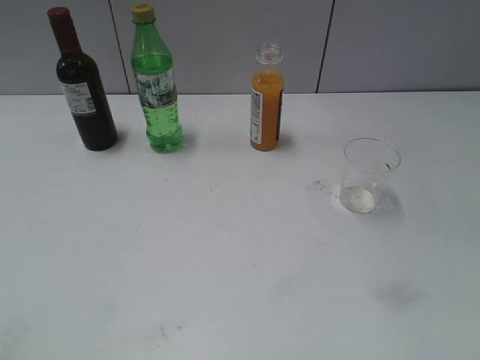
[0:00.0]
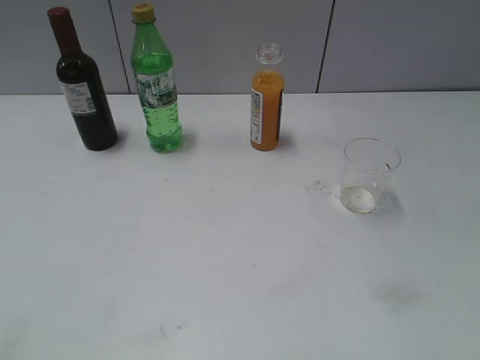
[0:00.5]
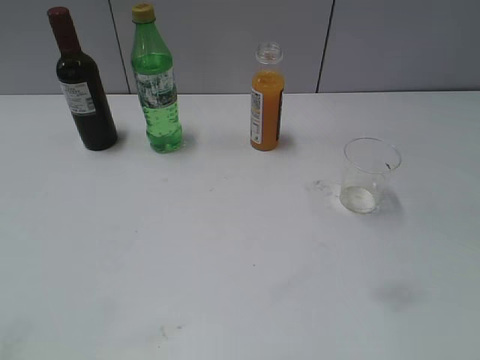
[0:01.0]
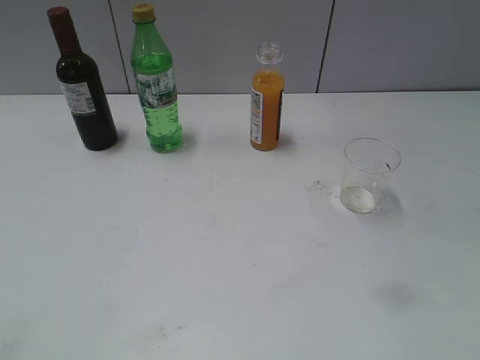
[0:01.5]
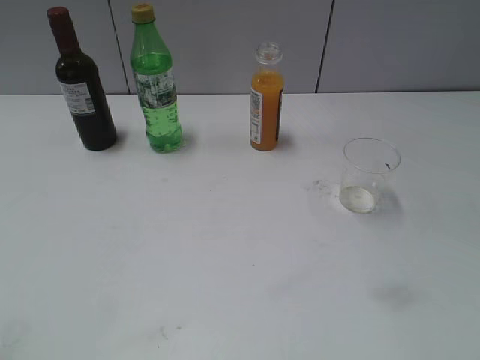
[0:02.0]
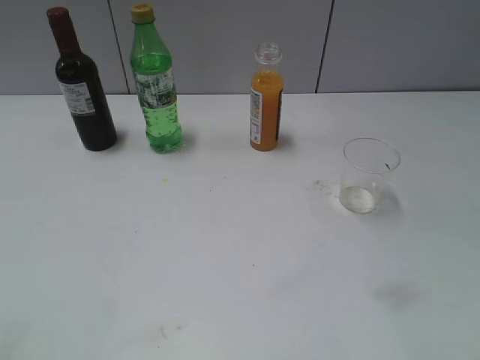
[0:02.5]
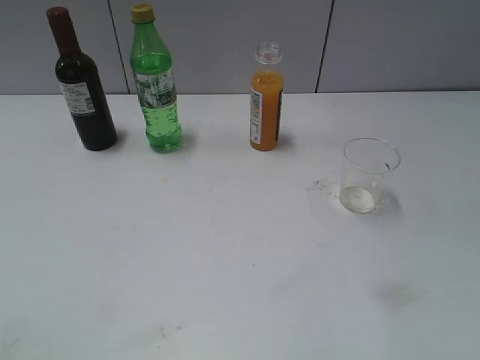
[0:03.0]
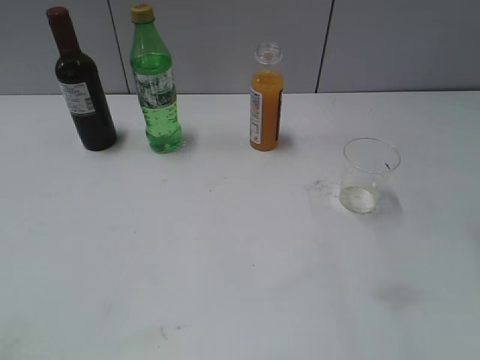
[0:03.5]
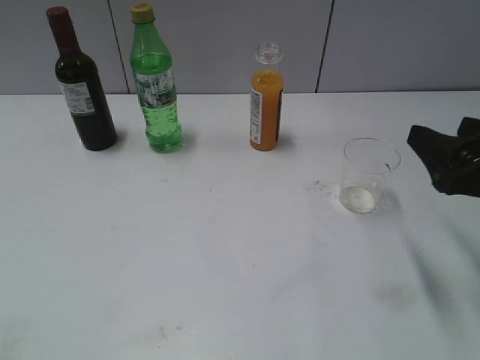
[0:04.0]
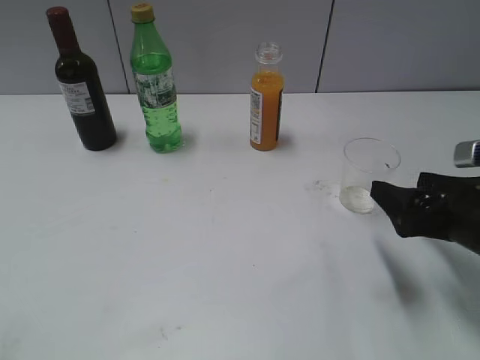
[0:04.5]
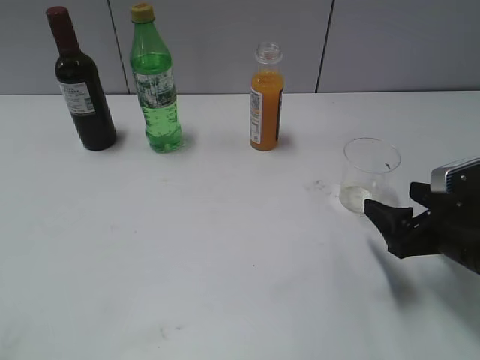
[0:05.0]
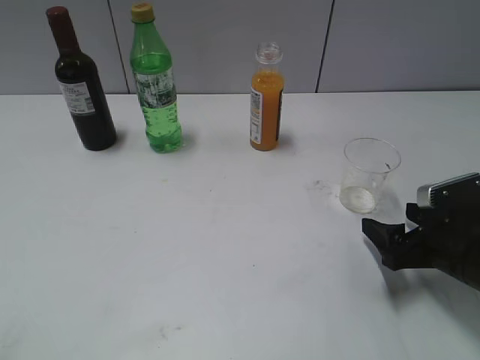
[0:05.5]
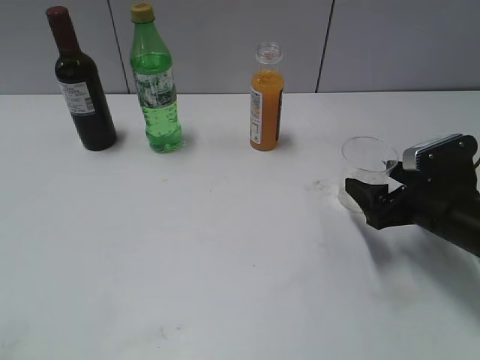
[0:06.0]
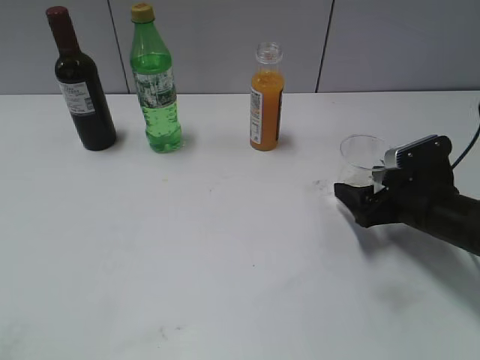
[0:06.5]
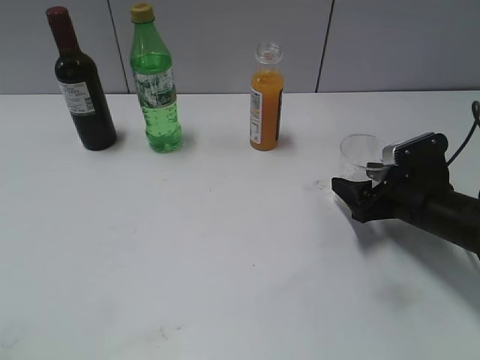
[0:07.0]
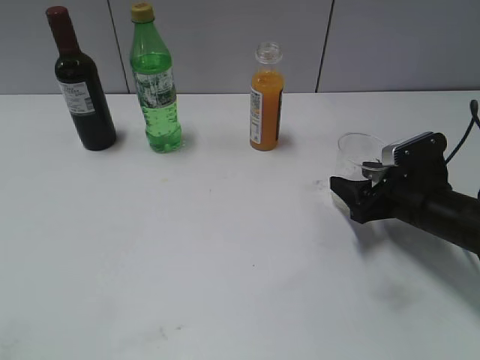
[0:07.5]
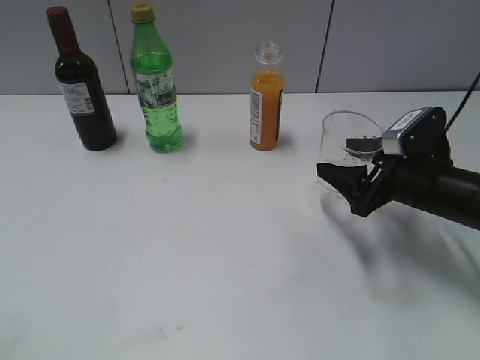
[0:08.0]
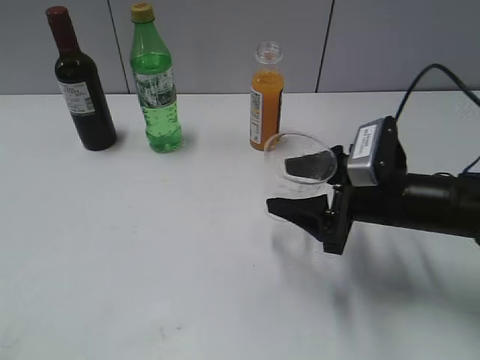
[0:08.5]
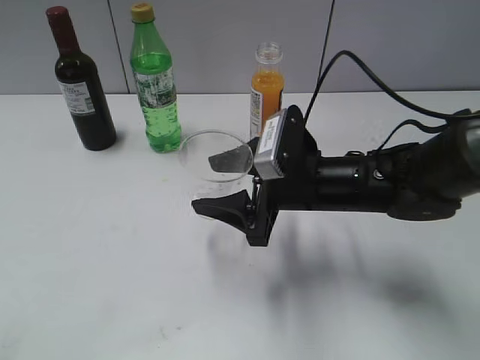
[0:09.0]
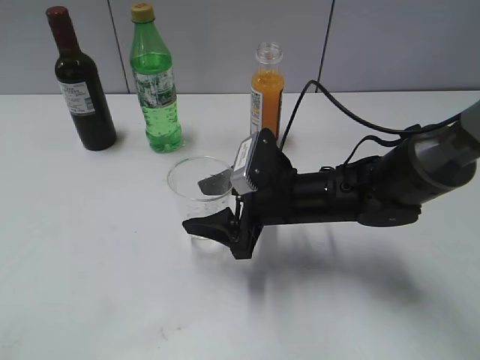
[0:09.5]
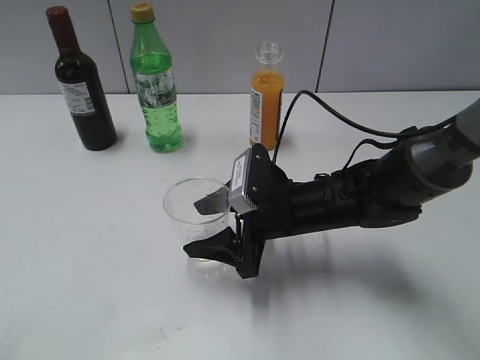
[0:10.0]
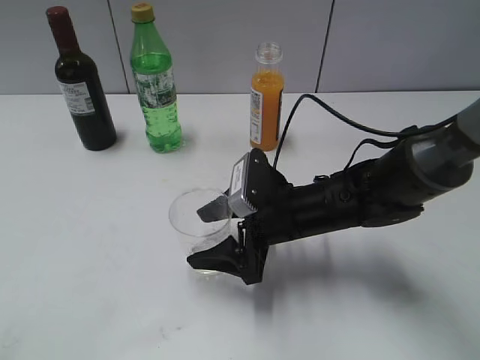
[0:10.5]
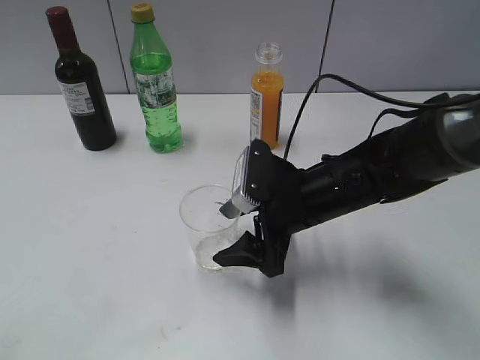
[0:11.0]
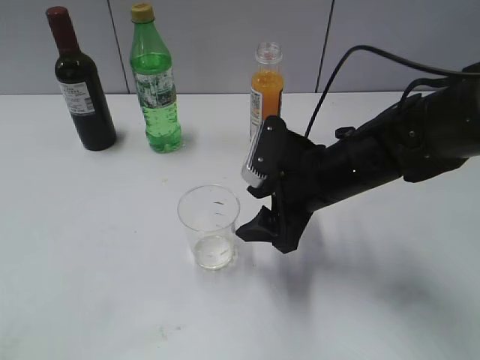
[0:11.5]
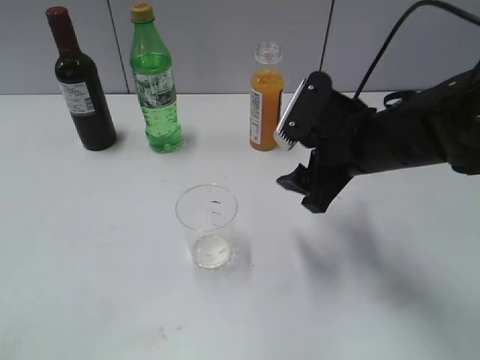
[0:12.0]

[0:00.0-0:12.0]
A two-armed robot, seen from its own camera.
Step, 0:04.0 to 0:07.0: Grasp the transparent cup with right gripper.
Step, 0:08.0 to 0:11.0: Place the transparent cup on the table with right gripper.
0:02.0 to 0:04.0: The right gripper goes roughly 25 cm forward and downward.
0:04.0 to 0:06.0: The right gripper travels downward and forward by about 15 cm, and opens up.
0:06.0 to 0:08.0: The right gripper closes up.
0:08.0 to 0:10.0: The right gripper goes roughly 15 cm to the left.
0:10.0 to 0:12.0: The right gripper travels upward and to the right by some 10 cm, and opens up.

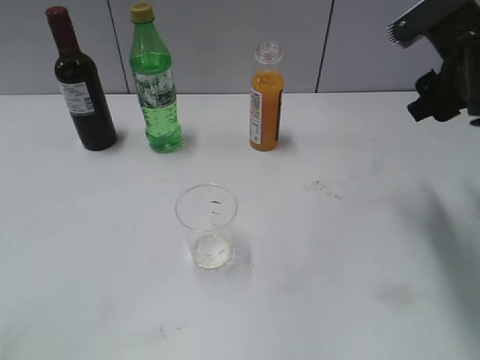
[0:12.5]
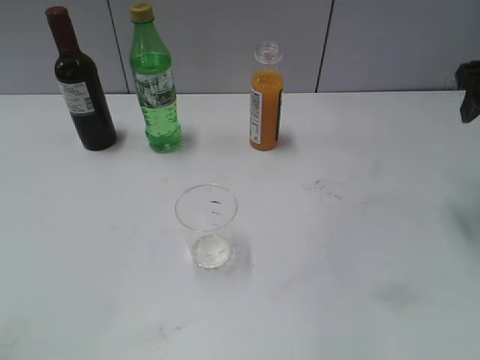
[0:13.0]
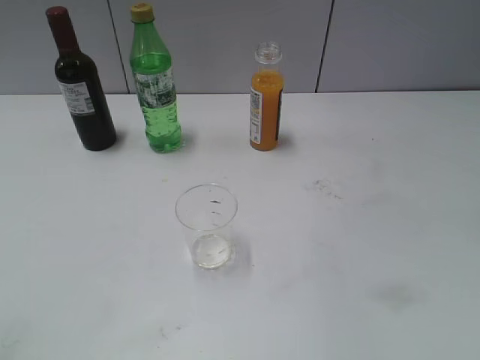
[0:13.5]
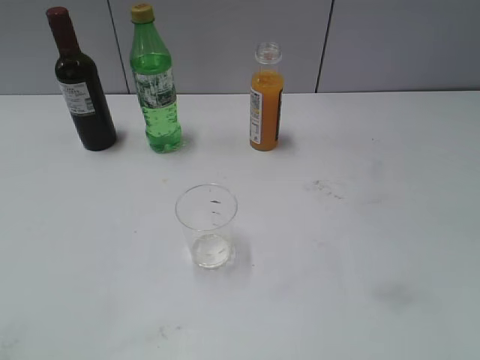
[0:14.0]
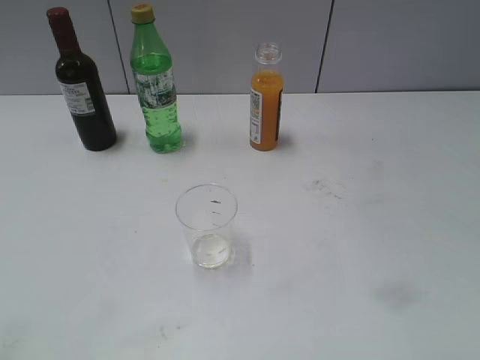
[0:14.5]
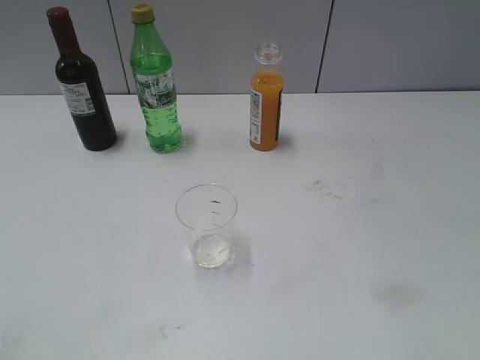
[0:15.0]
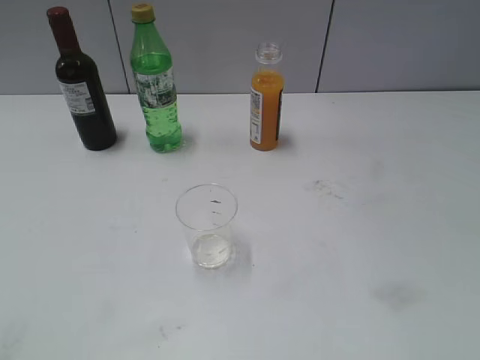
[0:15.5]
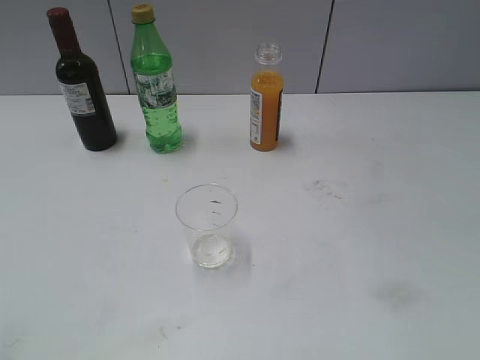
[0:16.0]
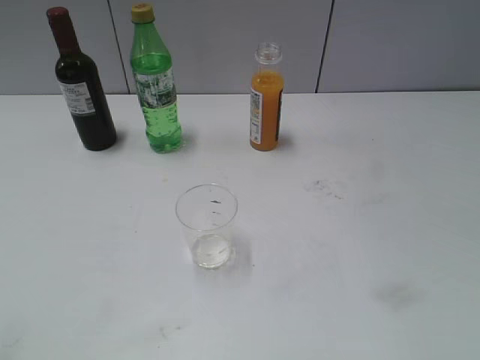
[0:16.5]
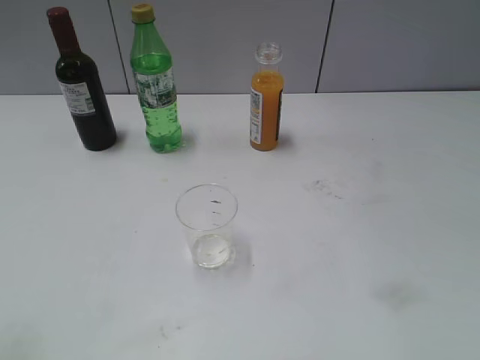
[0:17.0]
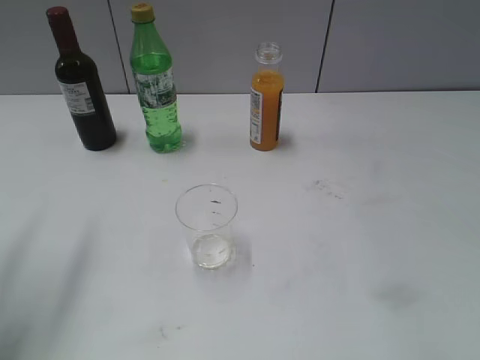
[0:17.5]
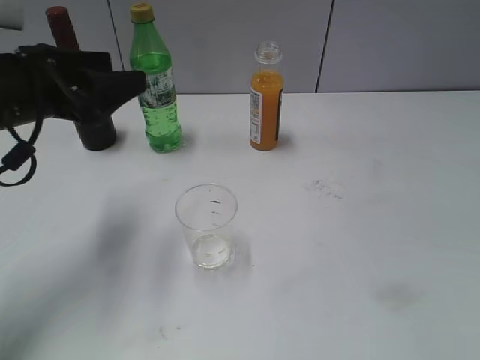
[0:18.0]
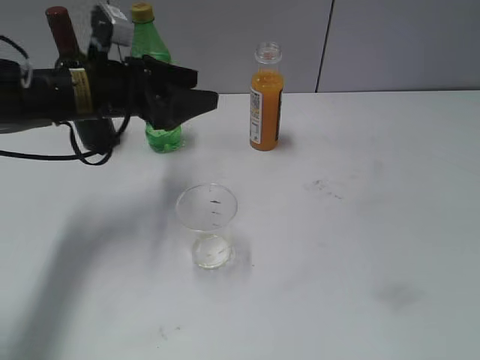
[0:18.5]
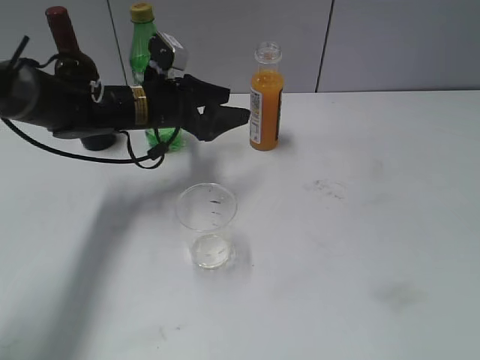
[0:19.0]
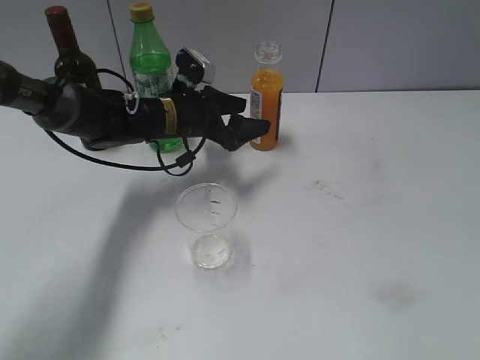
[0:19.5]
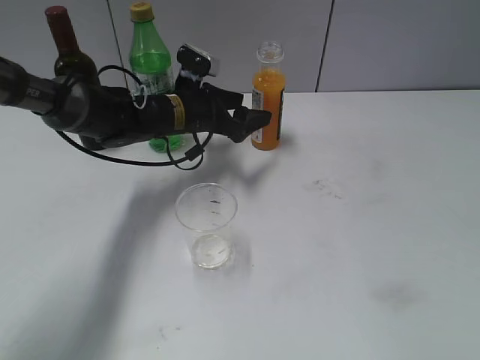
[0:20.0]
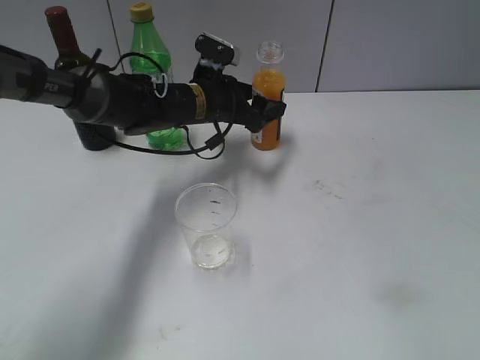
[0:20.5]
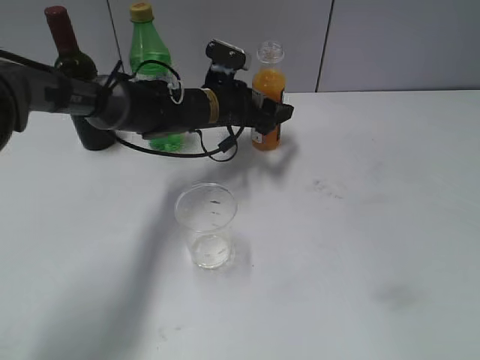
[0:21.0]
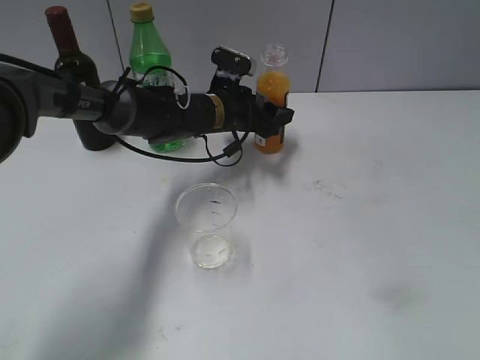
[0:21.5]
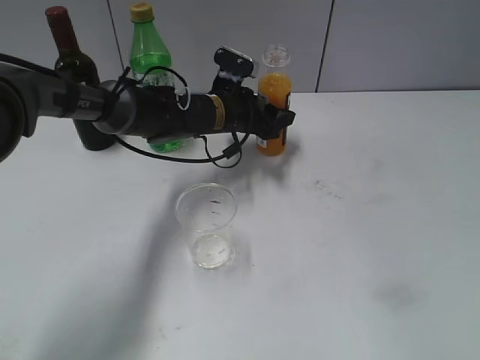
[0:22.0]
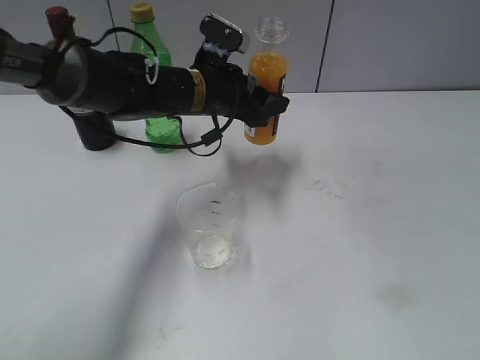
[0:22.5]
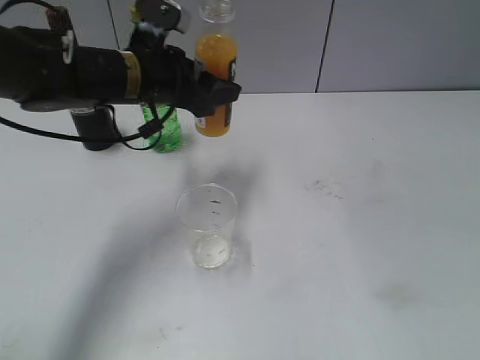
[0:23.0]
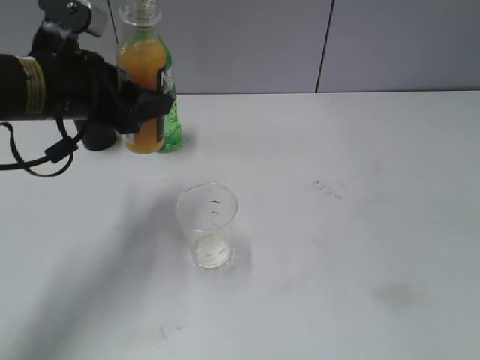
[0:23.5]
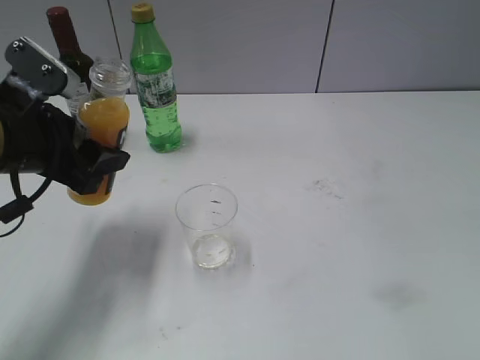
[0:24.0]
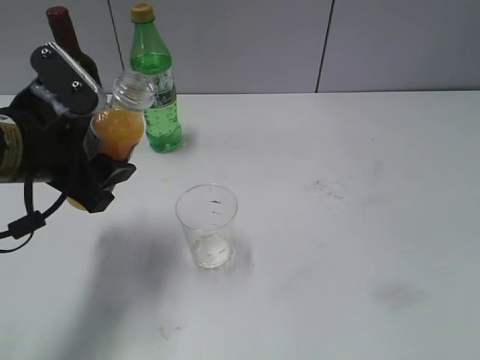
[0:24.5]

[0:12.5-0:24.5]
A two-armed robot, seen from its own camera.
Step, 0:12.5 to 0:21.5: Grasp the bottle with orange juice with left gripper.
0:12.5 to 0:14.5: The right gripper goes approximately 25 cm backward.
0:16.5 to 0:18.5: The left gripper heads forward and to the right, covering approximately 40 cm.
0:18.5 to 0:20.5: The left gripper shifts approximately 15 cm to the right, forward and downward, and opens its fingers.
0:20.5 to 0:22.5: The left gripper ends up about 5 cm from where it was, and closes up.
0:22.5 to 0:24.5: The left gripper moves backward and to the left, approximately 20 cm.

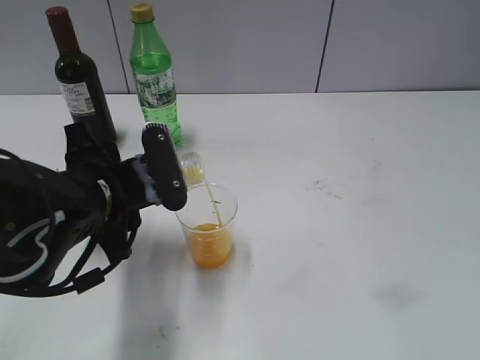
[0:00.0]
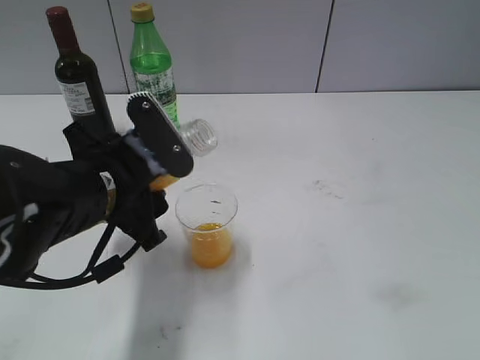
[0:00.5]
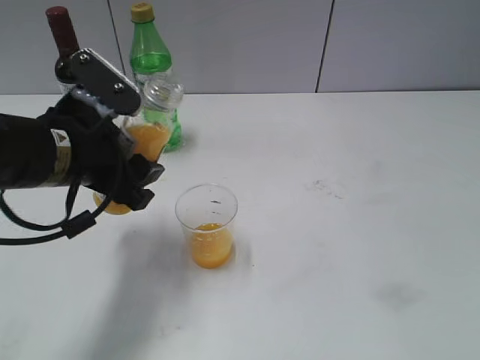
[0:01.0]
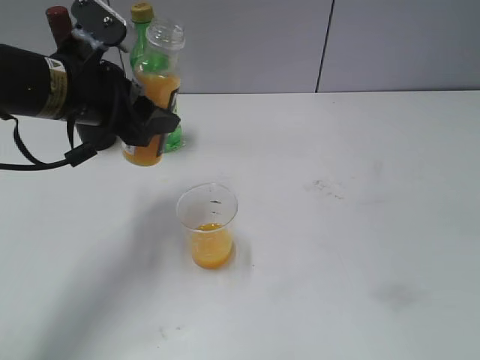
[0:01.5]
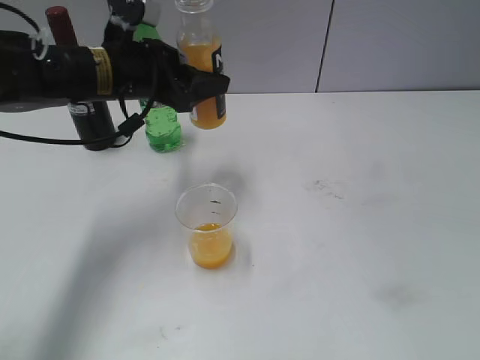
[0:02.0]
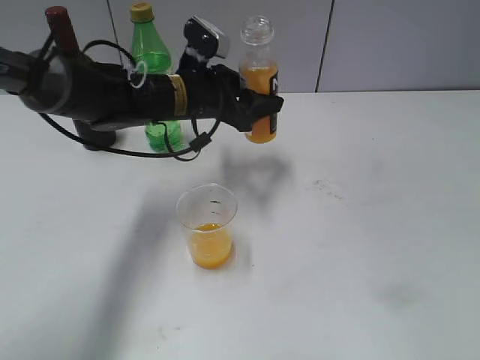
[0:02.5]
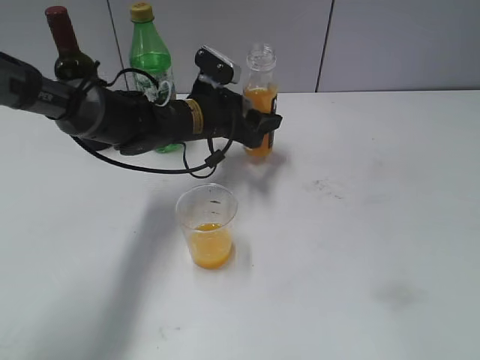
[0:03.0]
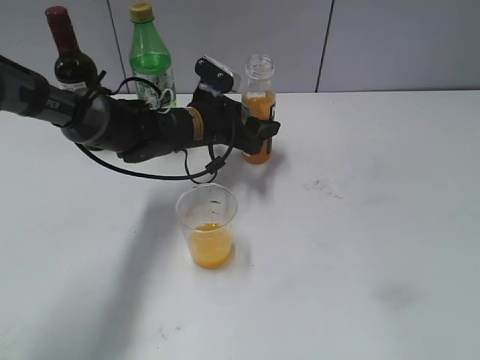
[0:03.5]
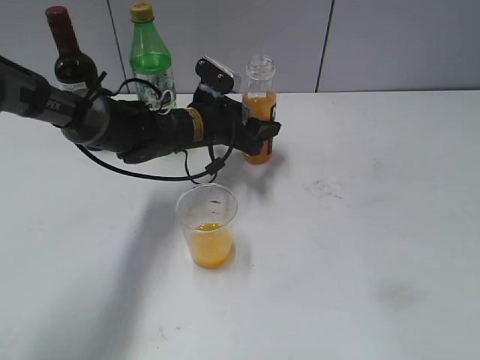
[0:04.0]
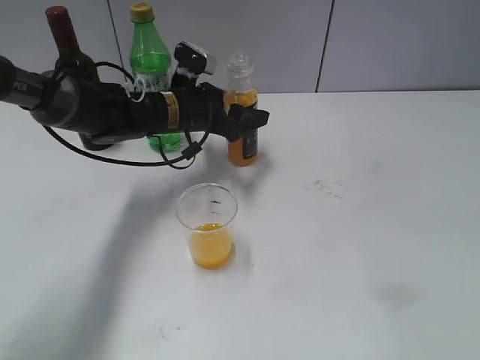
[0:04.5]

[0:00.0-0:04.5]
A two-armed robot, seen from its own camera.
0:00.0 to 0:02.0: The left gripper moves forward, roughly 15 cm.
0:02.0 to 0:04.5: The left gripper shifts approximately 15 cm downward, forward and to the right, and opens its fingers.